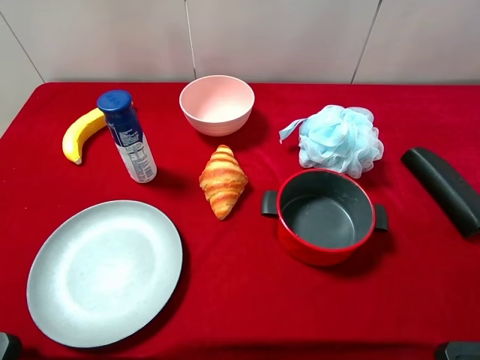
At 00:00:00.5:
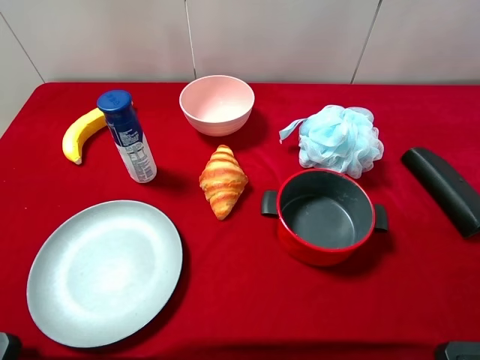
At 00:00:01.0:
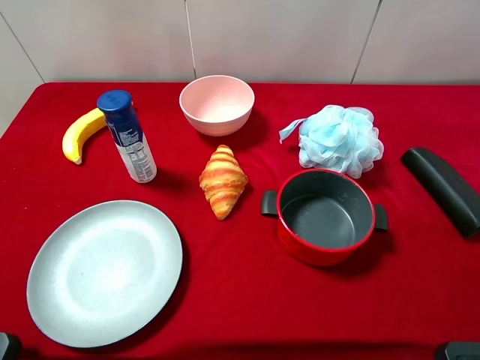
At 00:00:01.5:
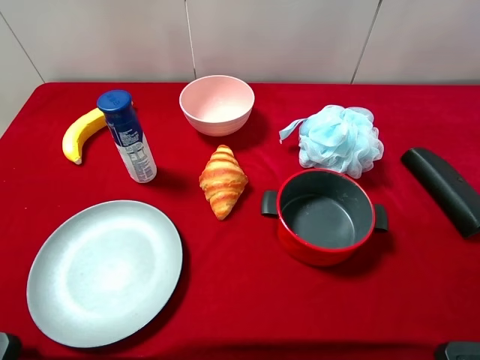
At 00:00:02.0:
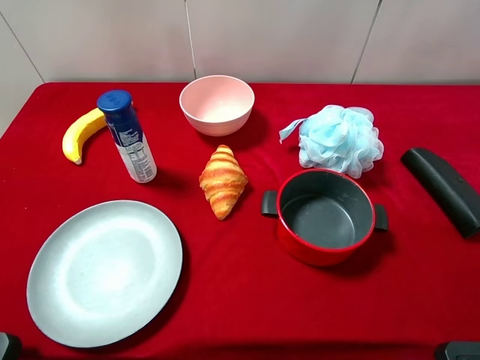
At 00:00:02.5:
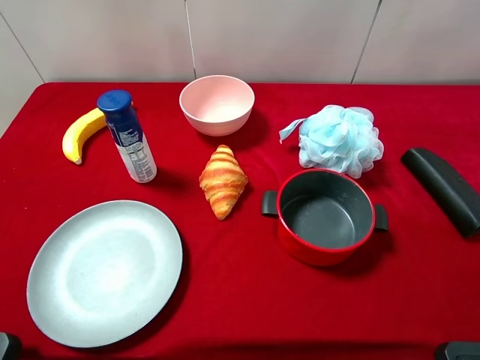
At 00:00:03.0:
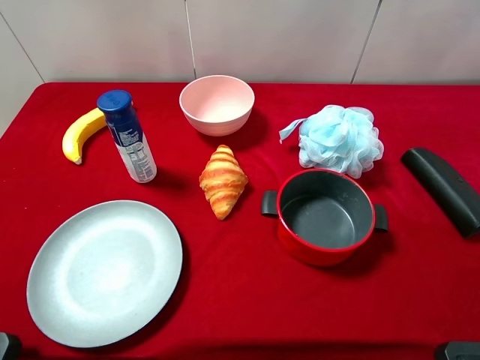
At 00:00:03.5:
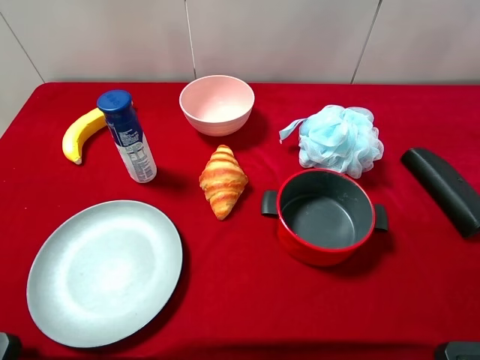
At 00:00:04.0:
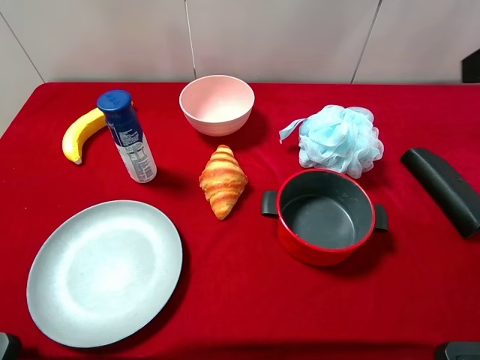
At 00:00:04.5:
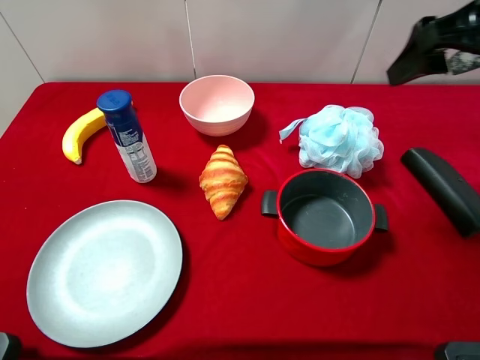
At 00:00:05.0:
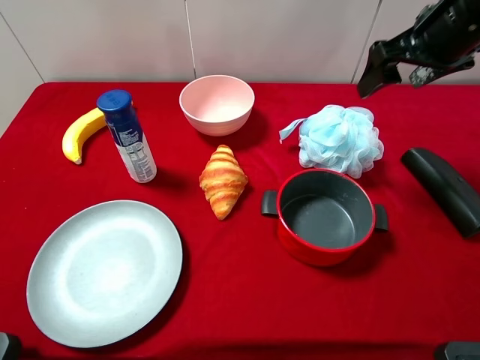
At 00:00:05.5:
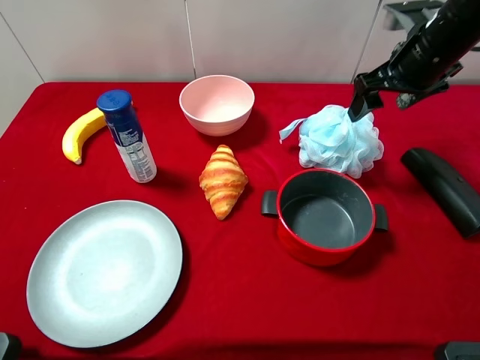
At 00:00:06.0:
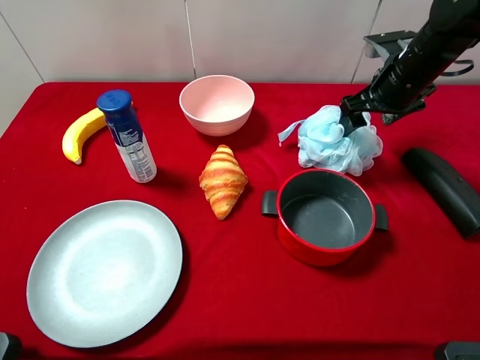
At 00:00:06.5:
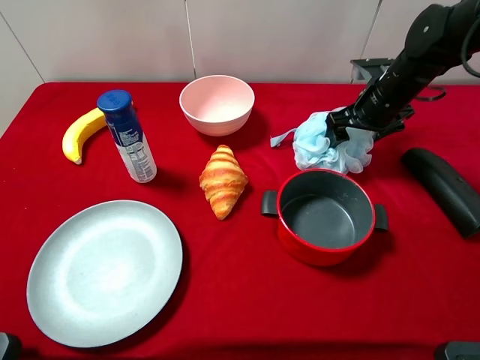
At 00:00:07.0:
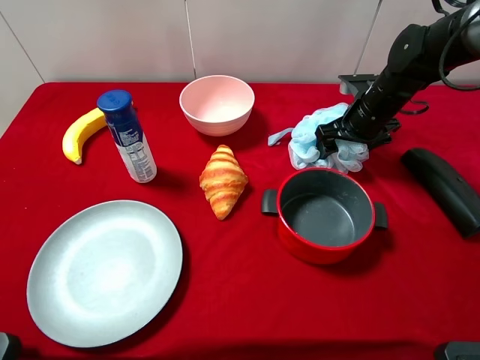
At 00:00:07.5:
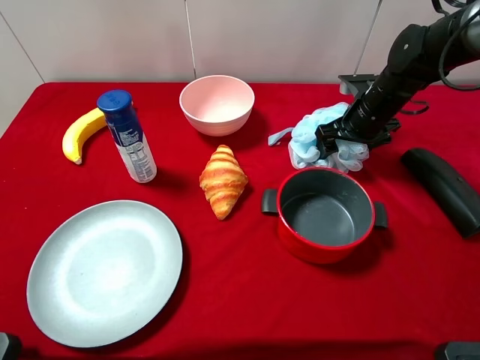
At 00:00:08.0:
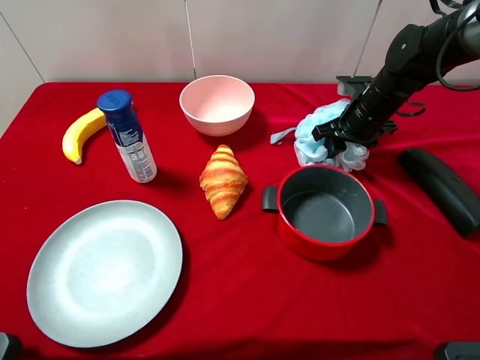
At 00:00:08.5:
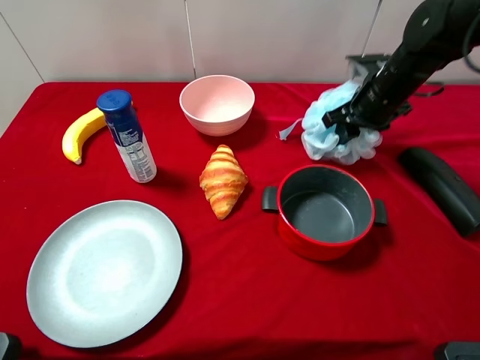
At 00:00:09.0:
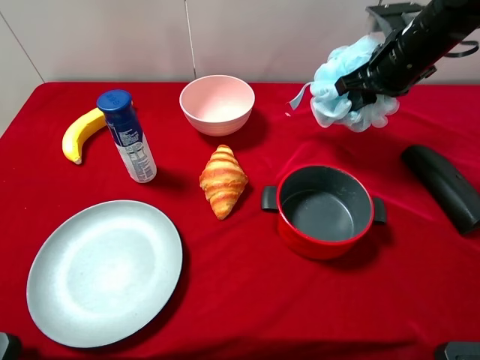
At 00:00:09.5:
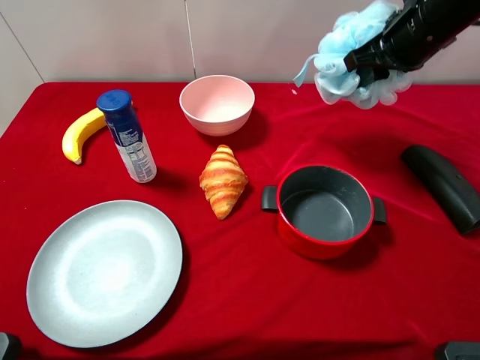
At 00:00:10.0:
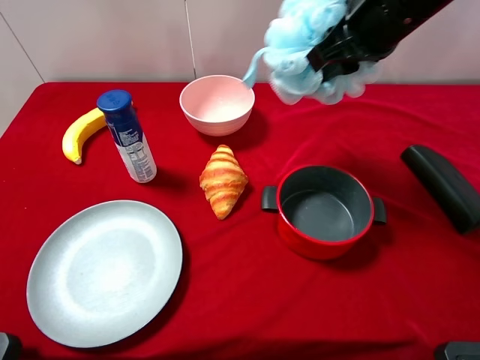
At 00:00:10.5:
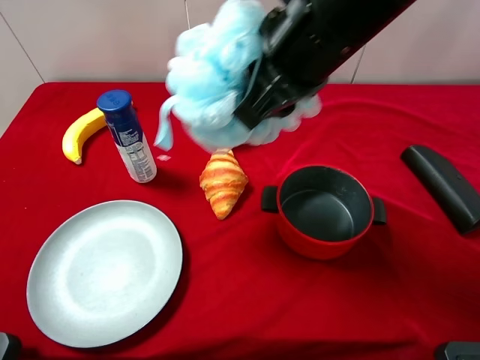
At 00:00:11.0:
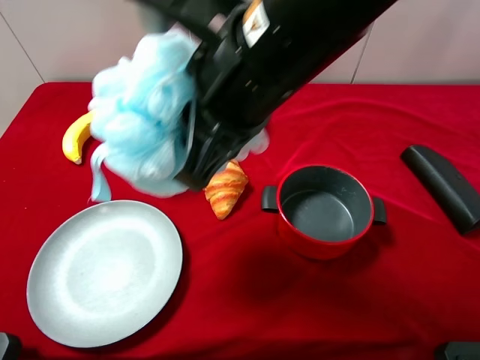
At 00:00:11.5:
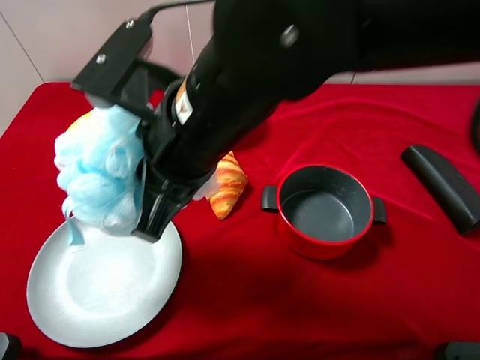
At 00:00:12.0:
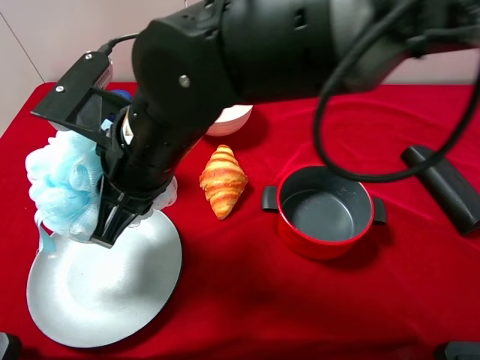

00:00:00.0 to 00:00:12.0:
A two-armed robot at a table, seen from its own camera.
Task of the whole recording: pick up an item with a gripper and place it in a random container on the desktop.
00:00:04.0 to 00:00:06.0: The right gripper is displaced forward and downward by approximately 25 cm.
00:00:06.0 to 00:00:08.0: The right gripper goes some 5 cm downward, and closes its fingers.
00:00:08.0 to 00:00:10.0: The right gripper is displaced upward and backward by about 20 cm.
00:00:10.0 to 00:00:12.0: The right gripper shifts approximately 25 cm to the left and backward.

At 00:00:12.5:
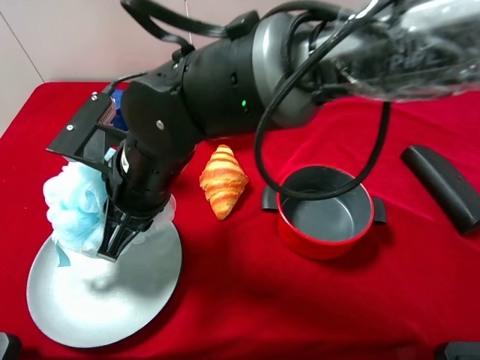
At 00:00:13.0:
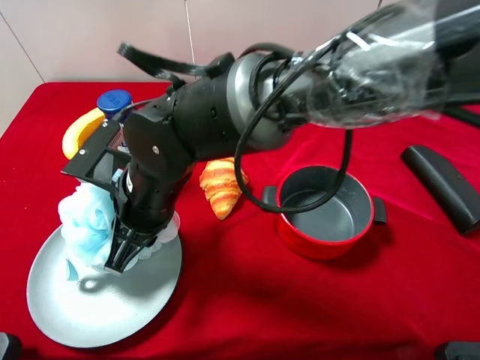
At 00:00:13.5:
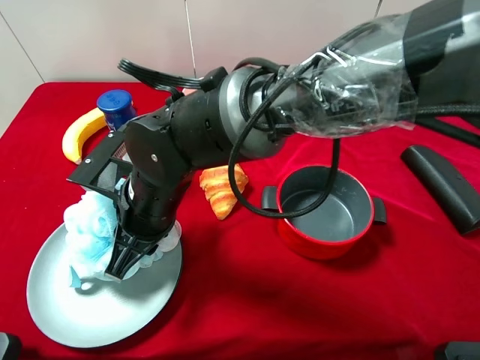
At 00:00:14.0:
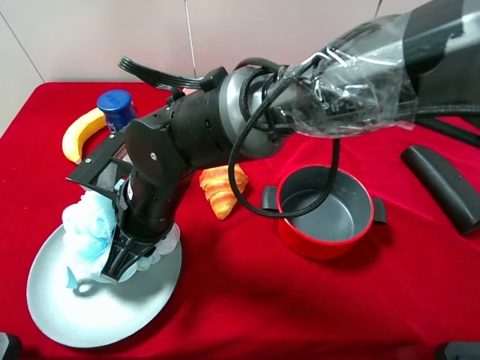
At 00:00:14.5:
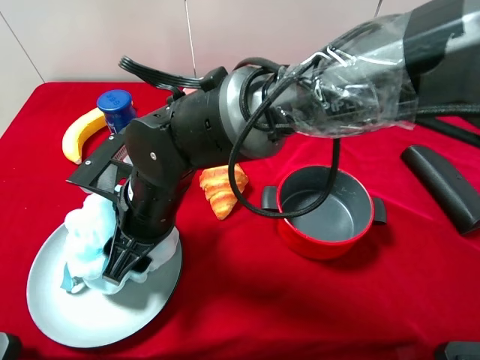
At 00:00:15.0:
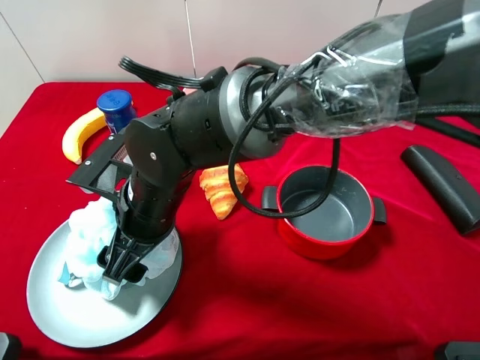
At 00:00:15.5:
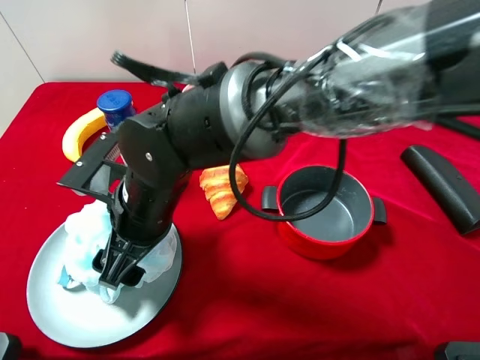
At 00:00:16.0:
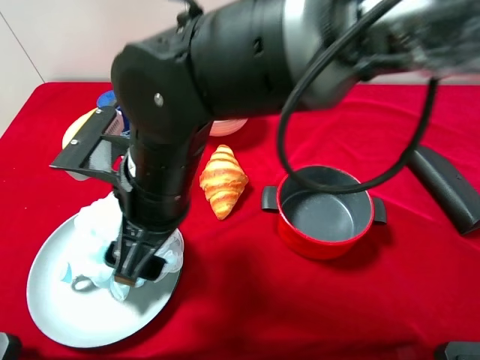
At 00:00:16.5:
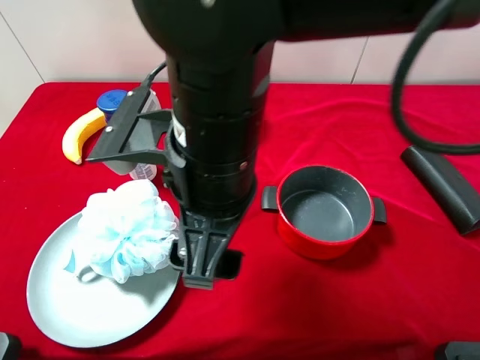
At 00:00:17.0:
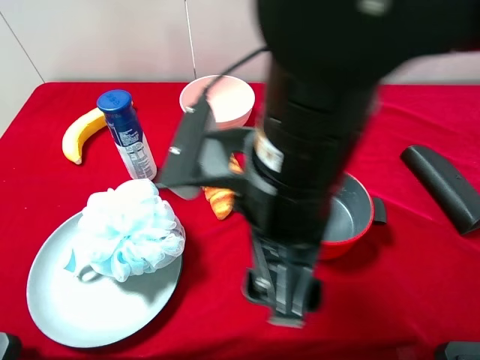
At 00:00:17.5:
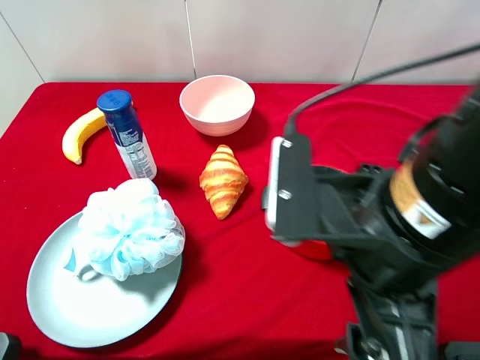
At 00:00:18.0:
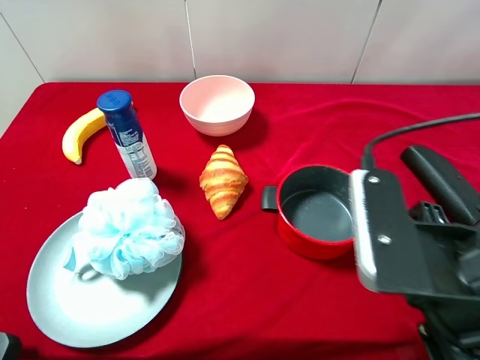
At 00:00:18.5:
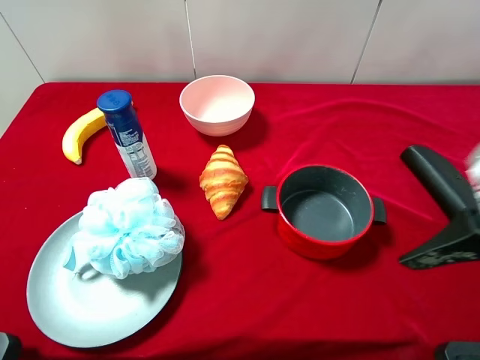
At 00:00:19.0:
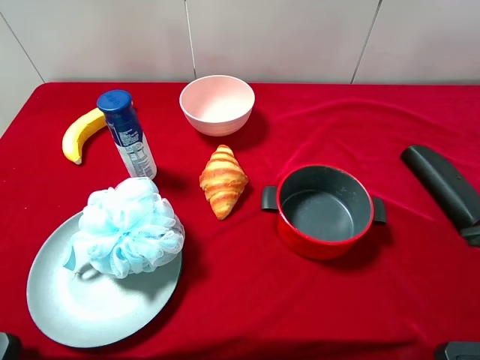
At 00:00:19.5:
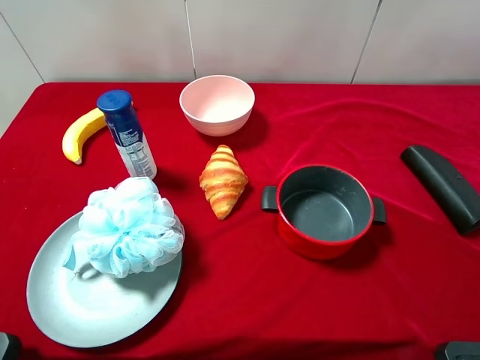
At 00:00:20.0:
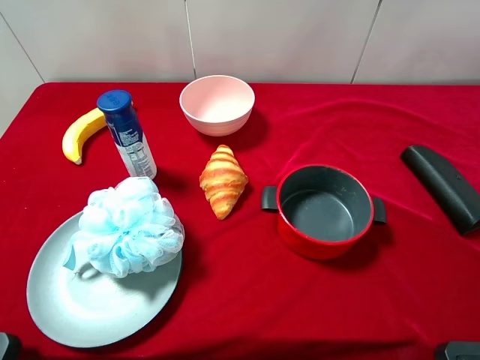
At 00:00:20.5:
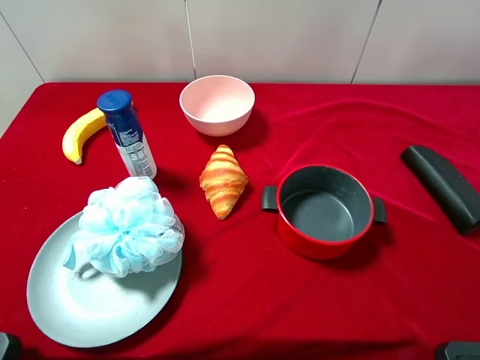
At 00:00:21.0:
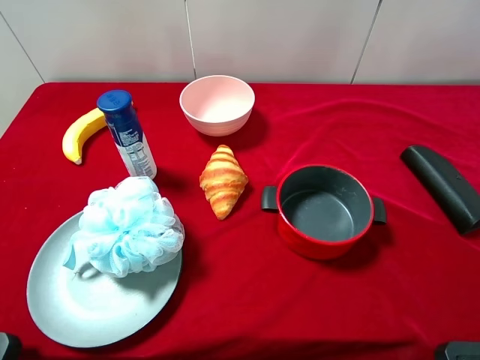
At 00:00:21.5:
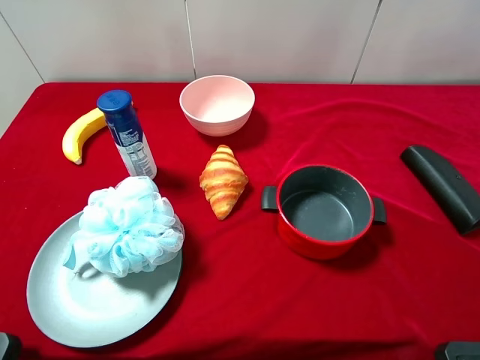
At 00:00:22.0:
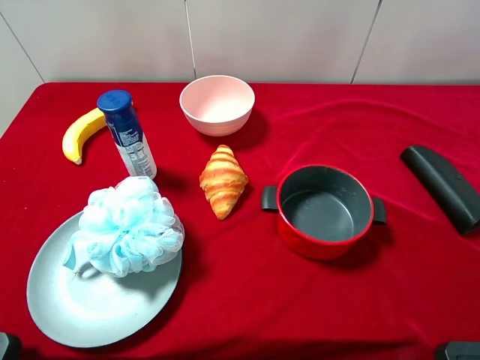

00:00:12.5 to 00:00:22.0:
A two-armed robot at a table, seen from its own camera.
Task of the whole recording: pick up an item with a gripper and place it in a random container on the desktop.
00:00:12.5 to 00:00:14.5: The right gripper opens its fingers.
00:00:14.5 to 00:00:16.5: The right gripper travels upward and to the right by approximately 15 cm.
00:00:16.5 to 00:00:18.0: The right gripper travels to the right and backward by roughly 20 cm.
00:00:18.0 to 00:00:20.0: The right gripper heads to the right, covering some 15 cm.
